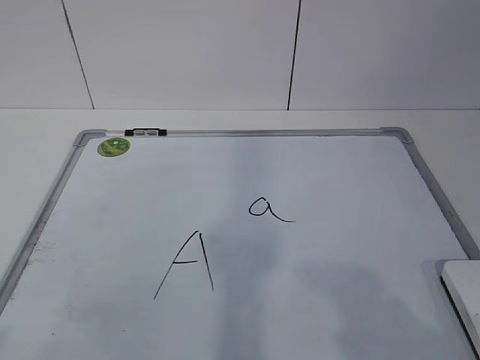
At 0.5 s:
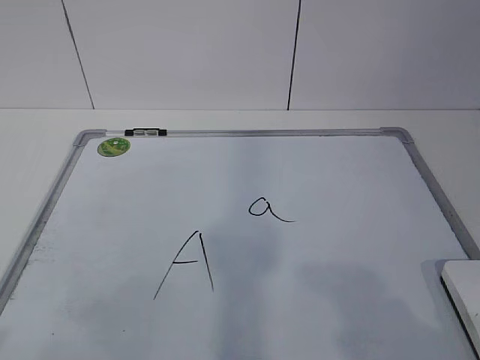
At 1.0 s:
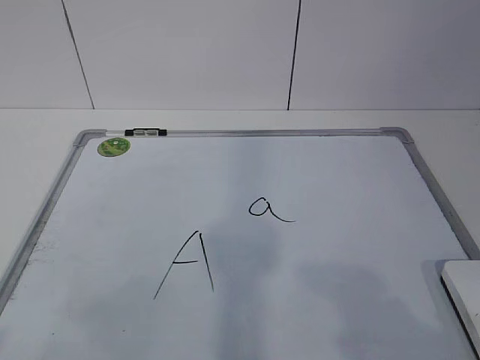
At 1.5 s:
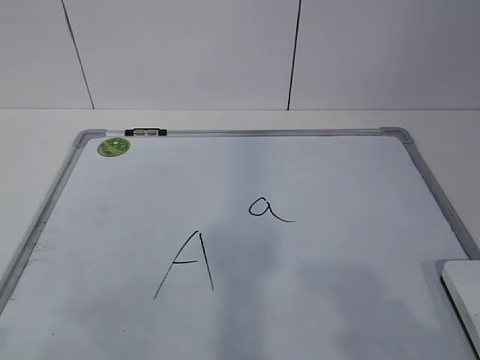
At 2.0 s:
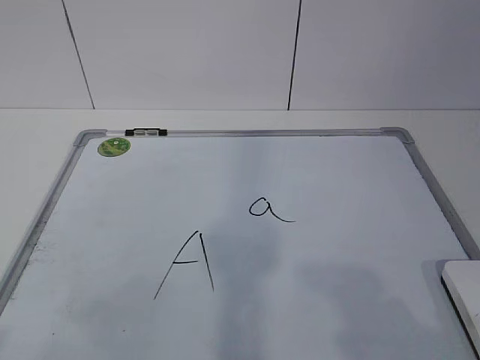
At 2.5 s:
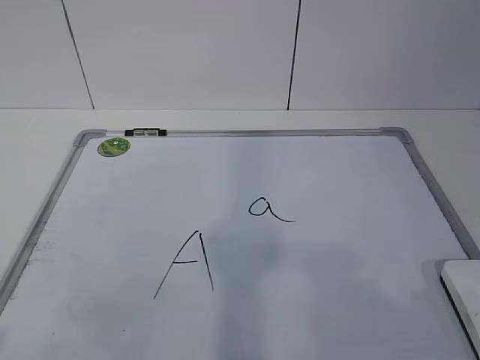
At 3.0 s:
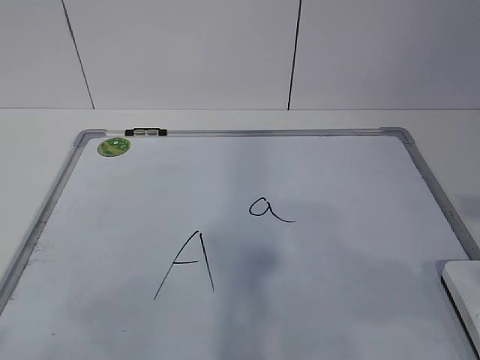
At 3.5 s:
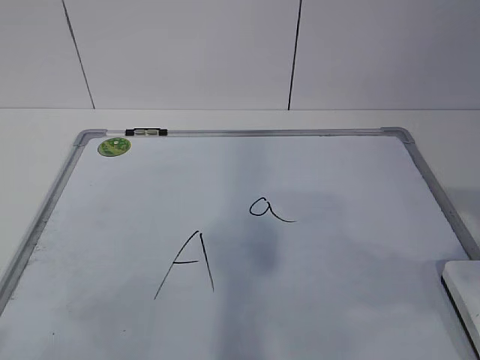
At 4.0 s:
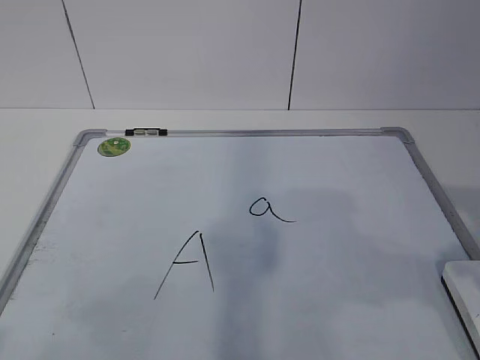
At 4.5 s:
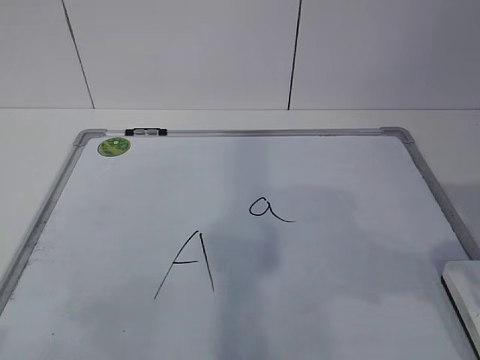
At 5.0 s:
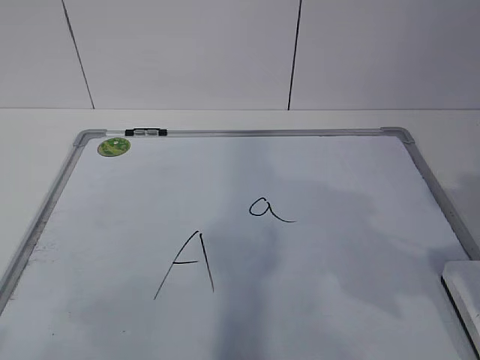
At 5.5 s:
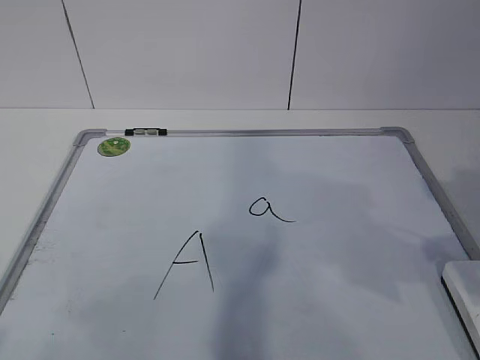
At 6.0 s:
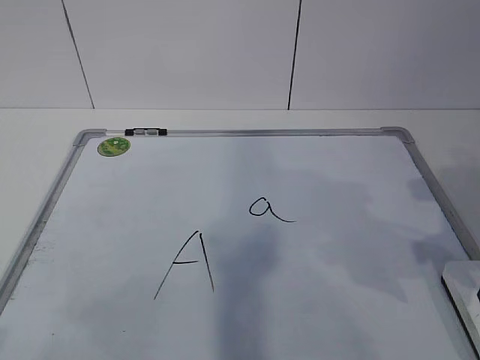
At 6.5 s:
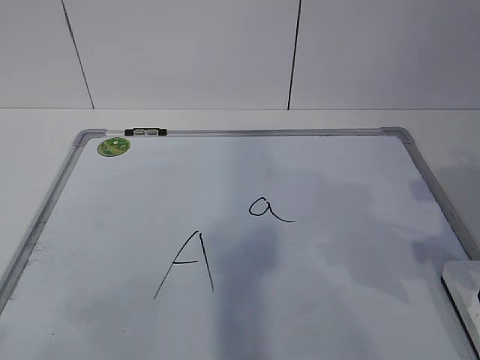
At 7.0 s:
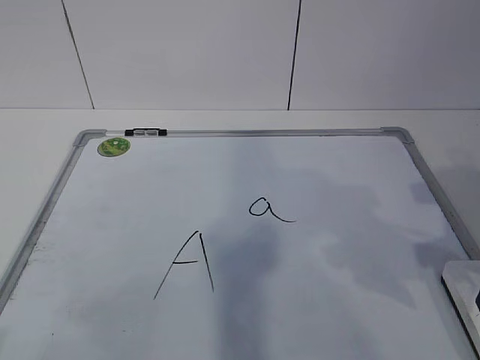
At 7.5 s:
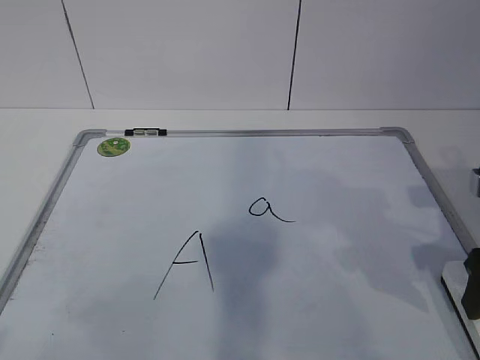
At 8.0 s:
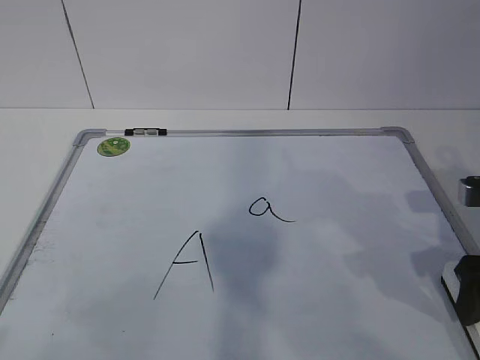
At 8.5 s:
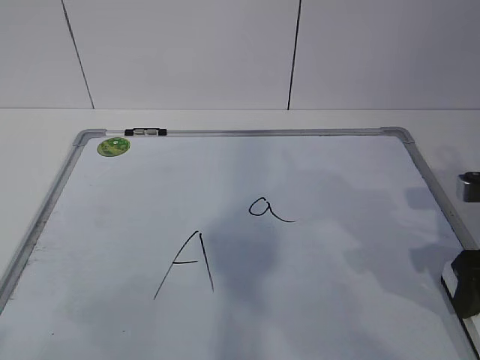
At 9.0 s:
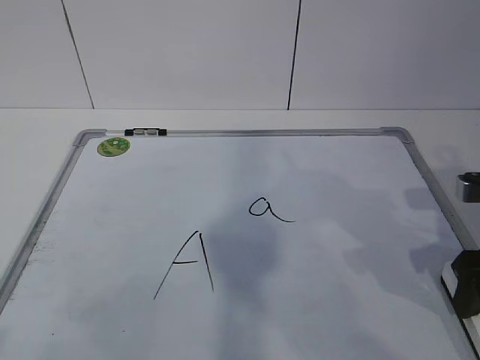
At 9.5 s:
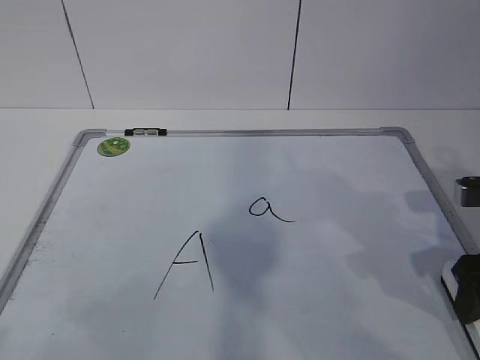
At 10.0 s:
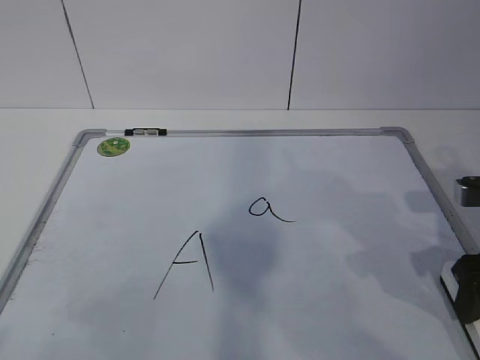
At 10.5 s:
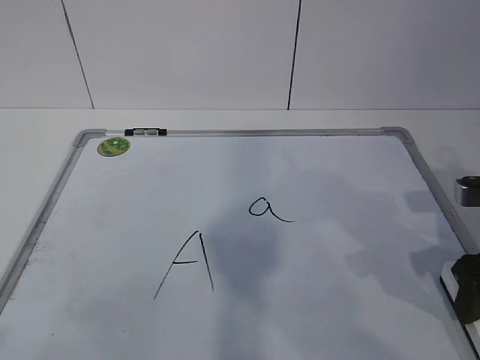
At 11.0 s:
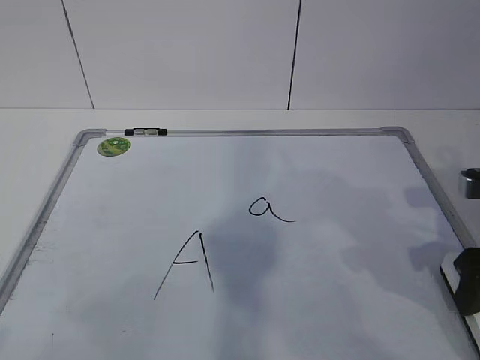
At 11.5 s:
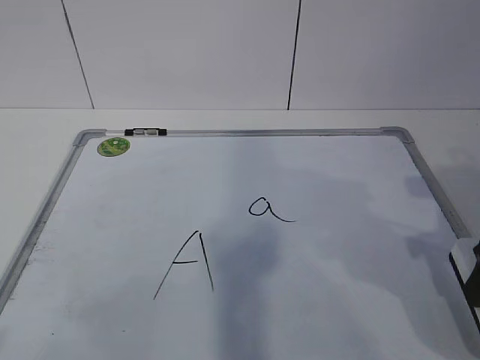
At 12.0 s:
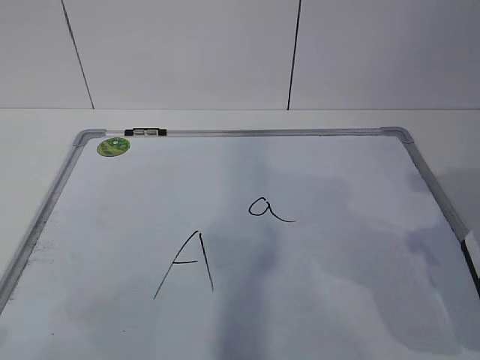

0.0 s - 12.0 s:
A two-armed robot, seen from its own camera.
Task of the whole recording: pick up the eraser on the blackboard and erase the letter "a".
6.0 s - 8.0 s: The right gripper ends up about 5 cm from where it was.
8.0 s - 10.0 s: Both grippers stay about where they are.
10.0 s - 12.0 s: The right gripper travels upward and backward by roughly 10 cm.

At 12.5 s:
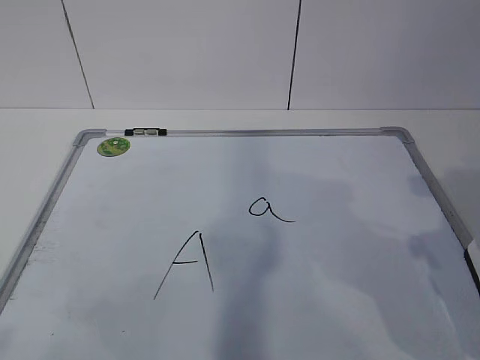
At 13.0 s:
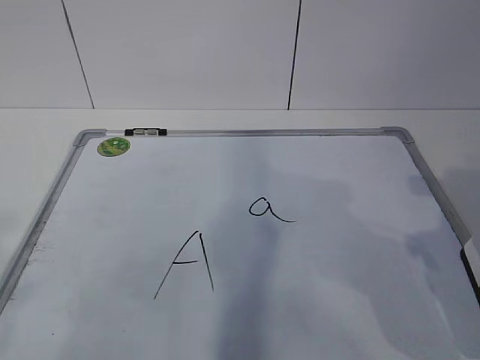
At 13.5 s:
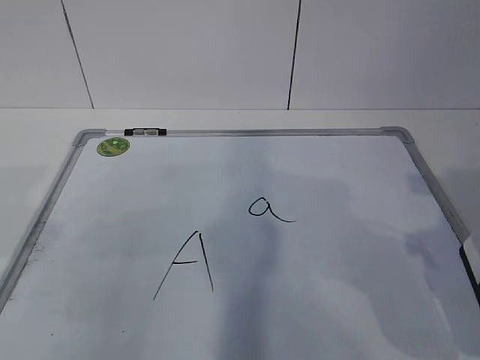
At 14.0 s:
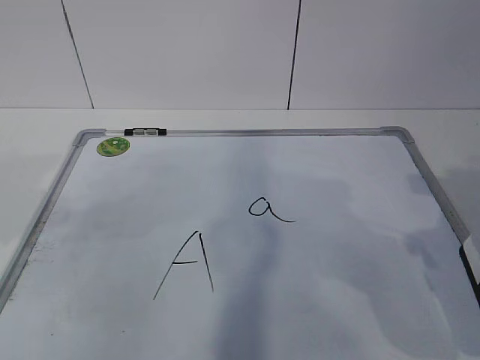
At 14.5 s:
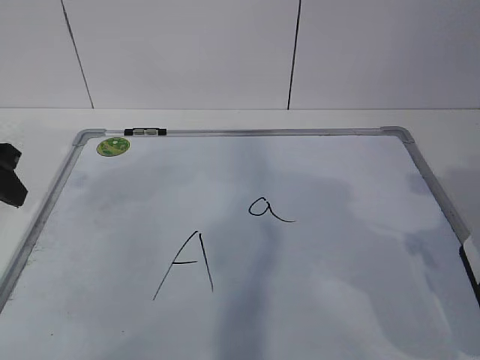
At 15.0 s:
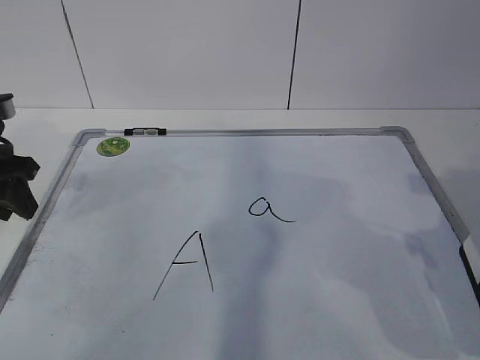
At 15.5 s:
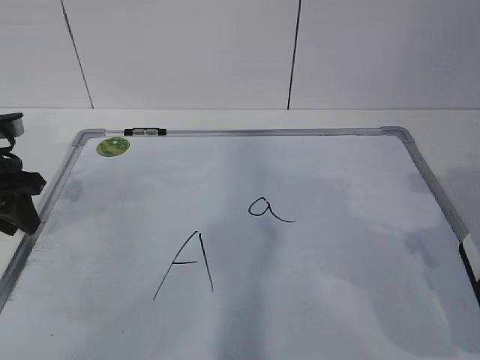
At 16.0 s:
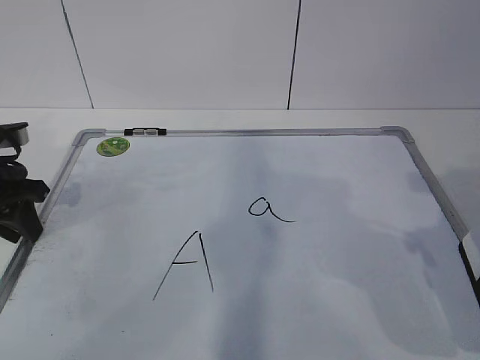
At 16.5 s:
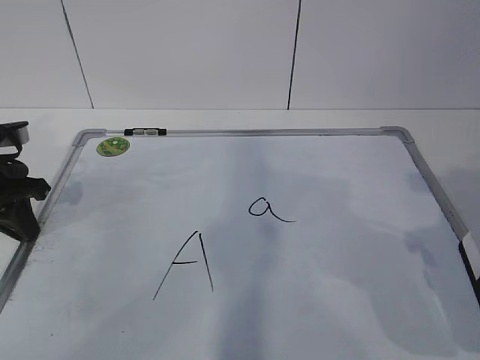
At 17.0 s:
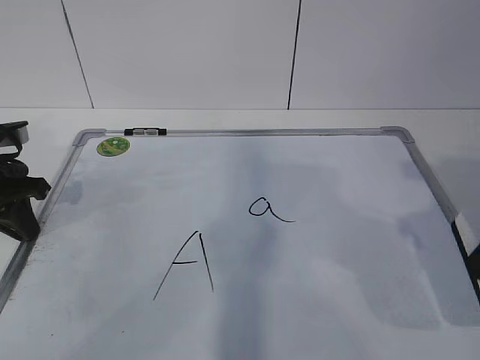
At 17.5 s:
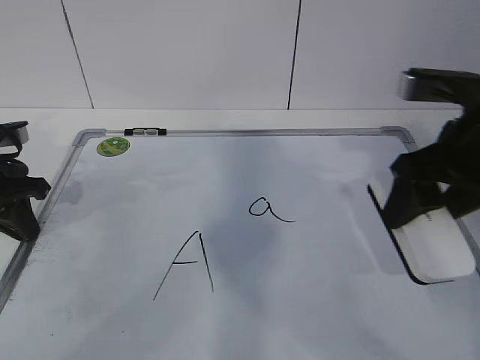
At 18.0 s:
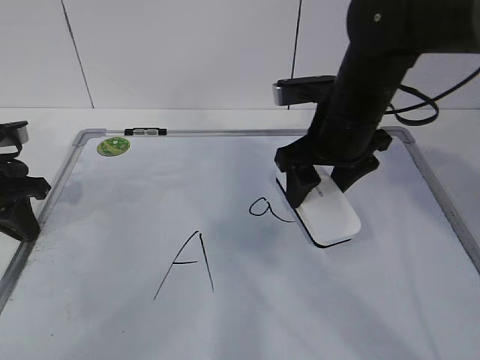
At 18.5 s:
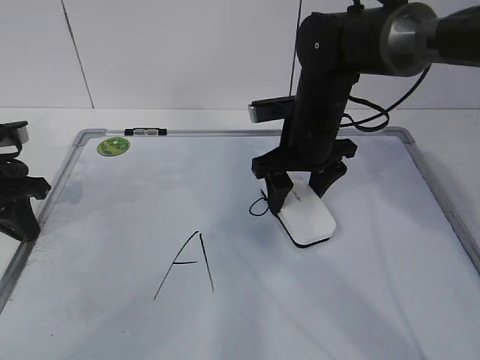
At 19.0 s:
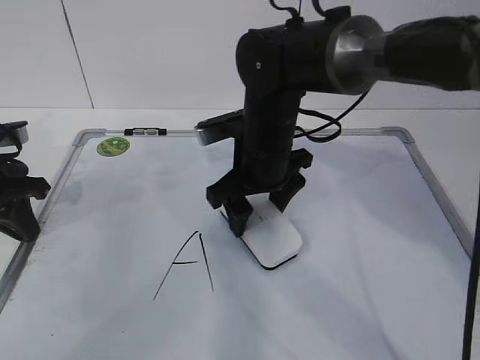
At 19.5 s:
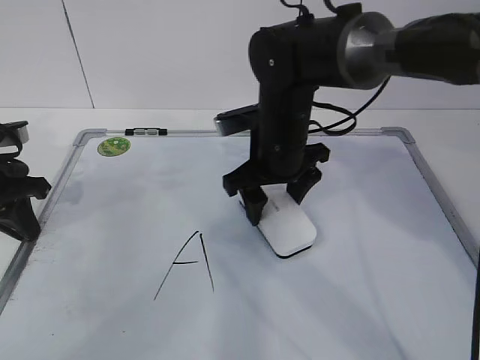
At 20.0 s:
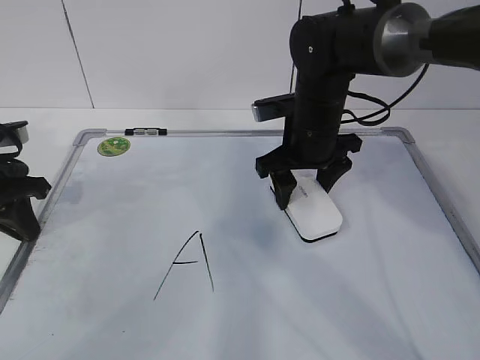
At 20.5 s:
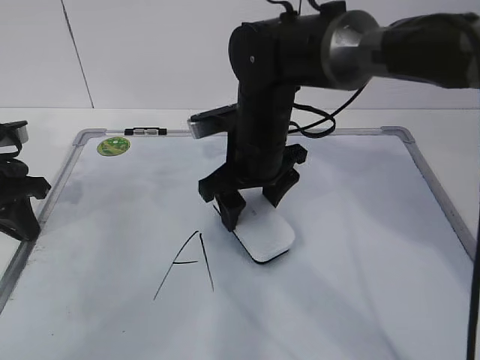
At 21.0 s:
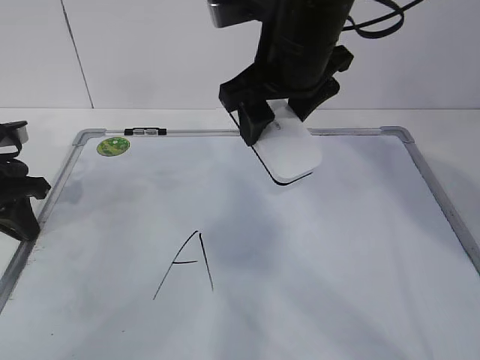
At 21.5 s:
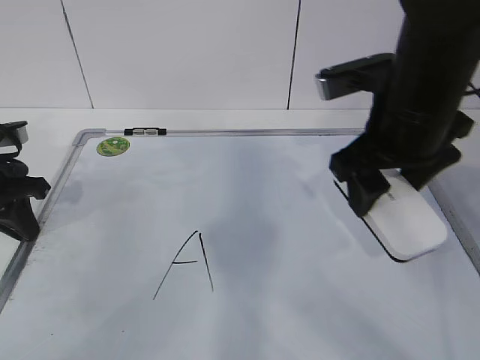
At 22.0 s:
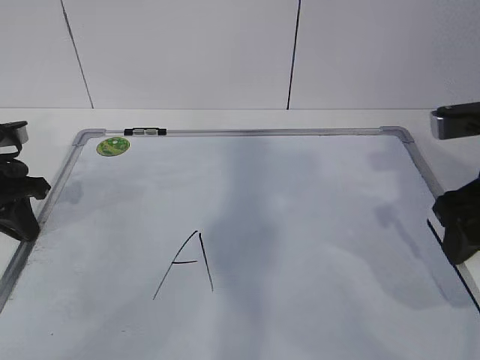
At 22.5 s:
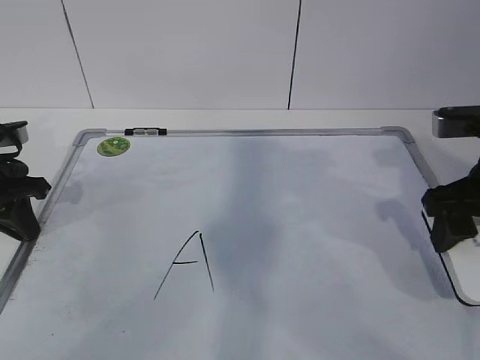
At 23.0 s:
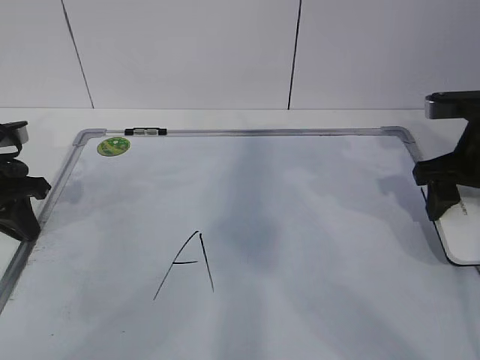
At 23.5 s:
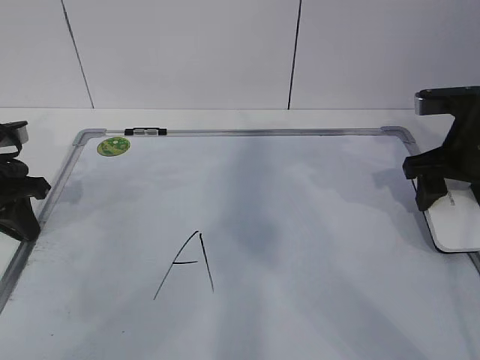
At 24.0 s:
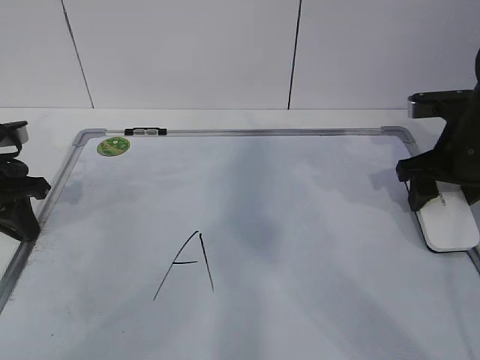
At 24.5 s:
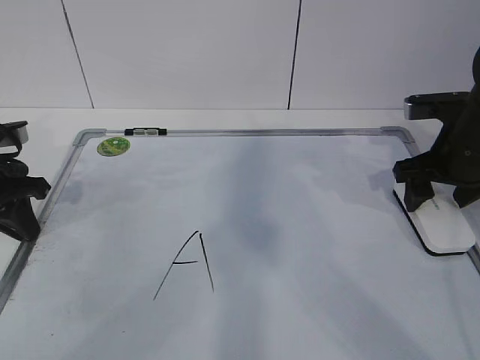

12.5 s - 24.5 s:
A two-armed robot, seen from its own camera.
Task of the whole recording: pick up the eraser on the blackboard and erase the letter "a".
Step, 17.5 s - 20.0 s: Put down the eraser with your right hand.
12.5 s - 14.5 s: The left gripper shifts some 30 cm forward.
14.5 s - 16.5 s: The left gripper shifts about 5 cm downward, and closes up.
16.5 s - 18.5 s: The right gripper heads forward and to the left, covering some 30 cm.
18.5 s - 20.5 s: The right gripper goes left and right, roughly 5 cm each way, reversing 2 times.
20.5 s - 22.5 s: The right gripper shifts roughly 25 cm to the right and backward.
22.5 s - 24.5 s: The right gripper goes about 10 cm forward.

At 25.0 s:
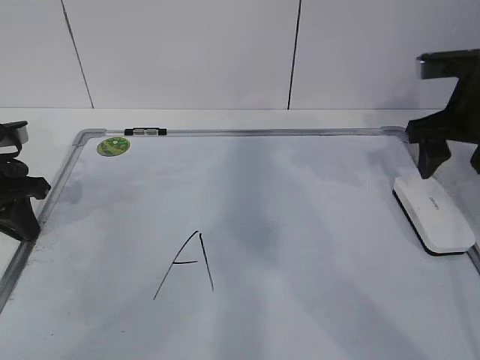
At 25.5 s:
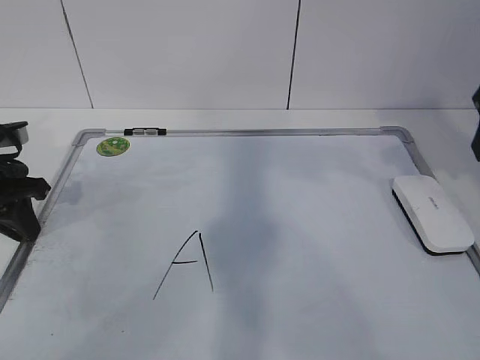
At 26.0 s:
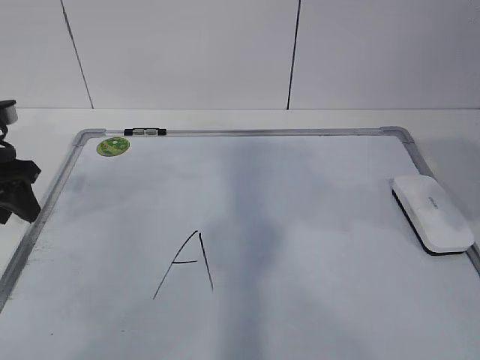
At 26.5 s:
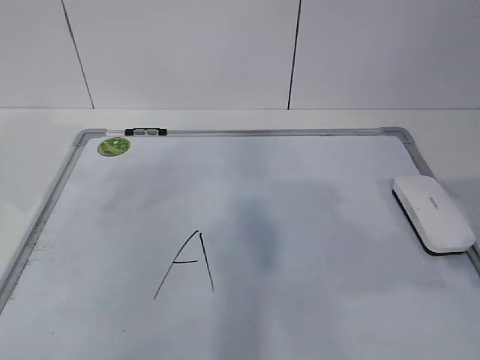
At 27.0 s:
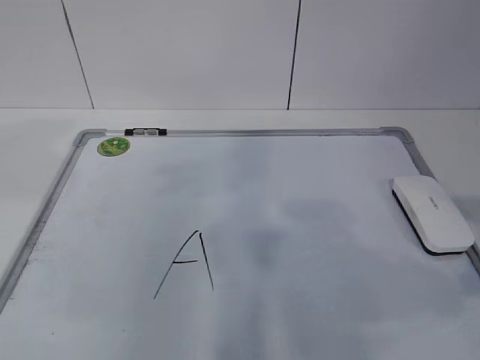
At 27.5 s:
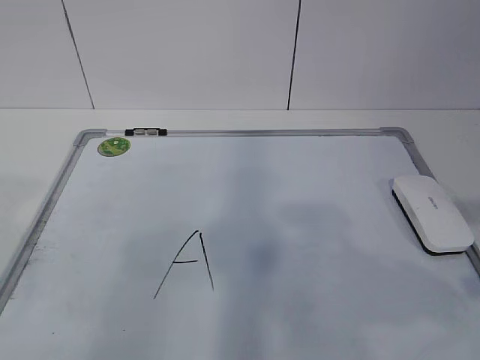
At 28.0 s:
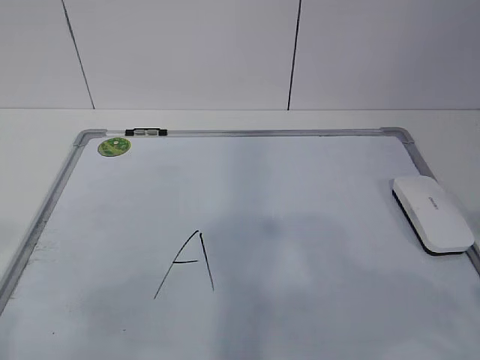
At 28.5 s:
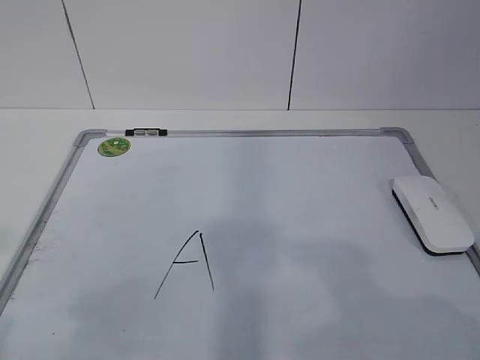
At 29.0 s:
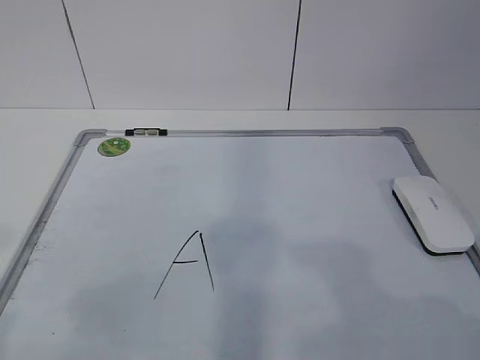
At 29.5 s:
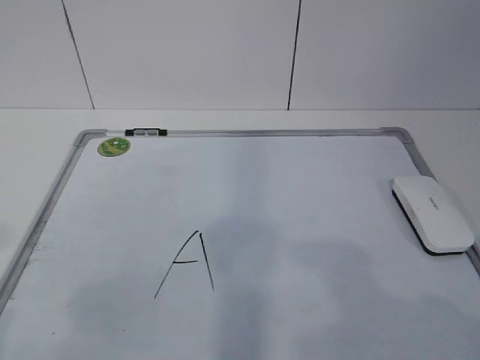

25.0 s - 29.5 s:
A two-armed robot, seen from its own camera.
Task of the whole recording: pick up the eraser on the blackboard and erase the letter "a".
25.0 s - 27.0 s: The right gripper shifts about 25 cm backward. The left gripper is displaced upward and backward by some 25 cm, and opens its fingers.
